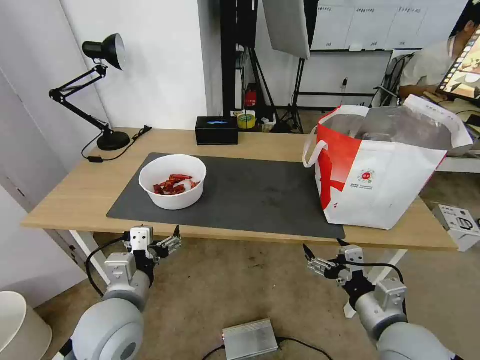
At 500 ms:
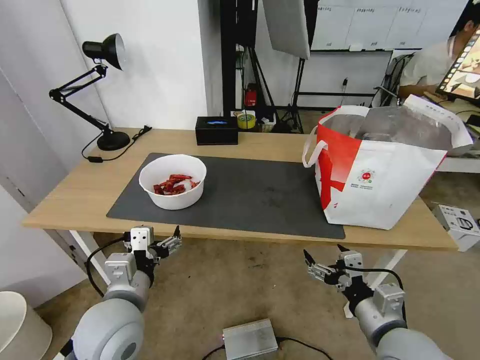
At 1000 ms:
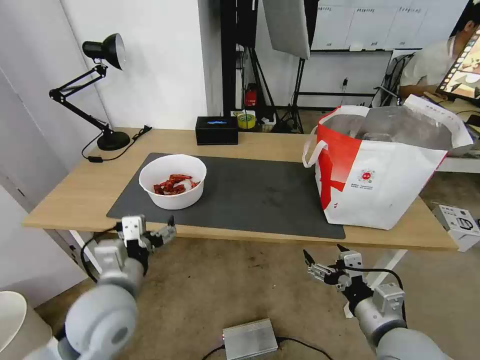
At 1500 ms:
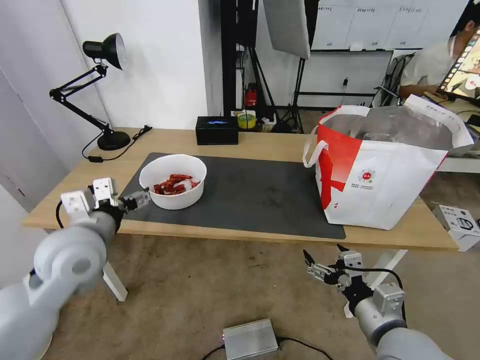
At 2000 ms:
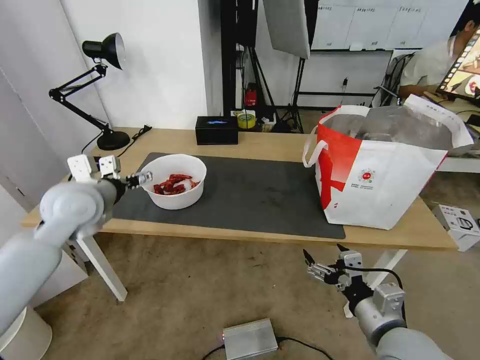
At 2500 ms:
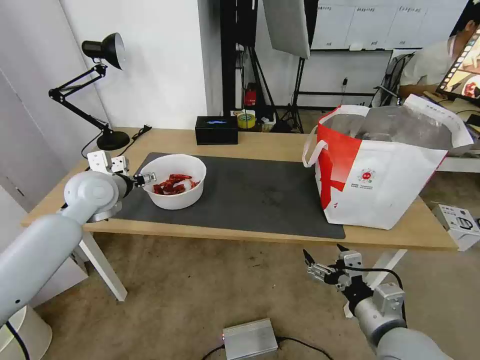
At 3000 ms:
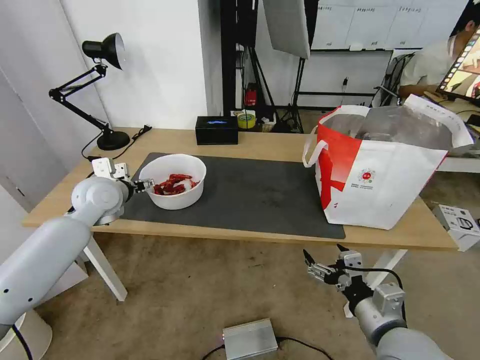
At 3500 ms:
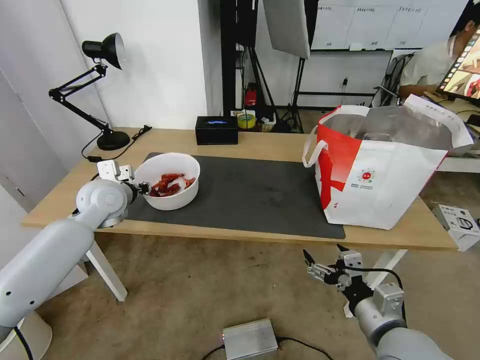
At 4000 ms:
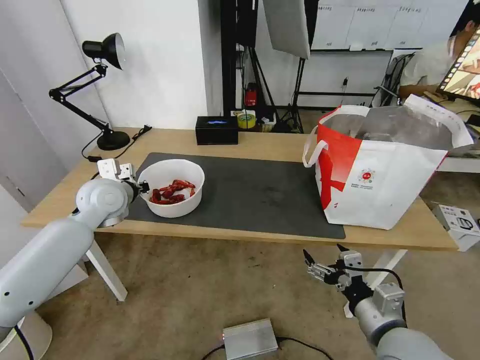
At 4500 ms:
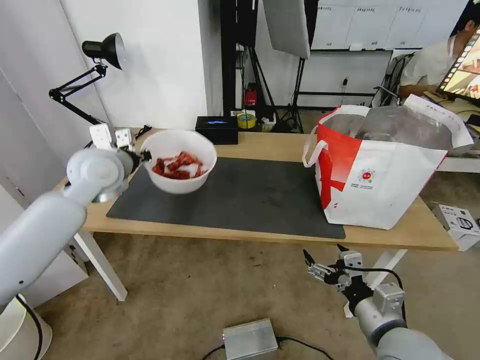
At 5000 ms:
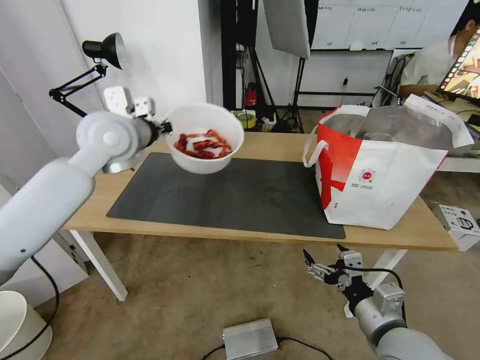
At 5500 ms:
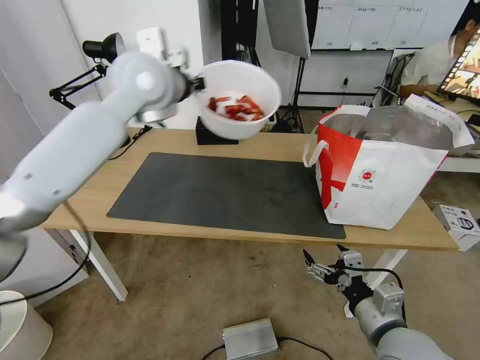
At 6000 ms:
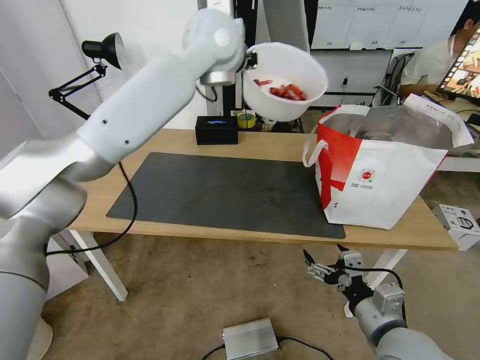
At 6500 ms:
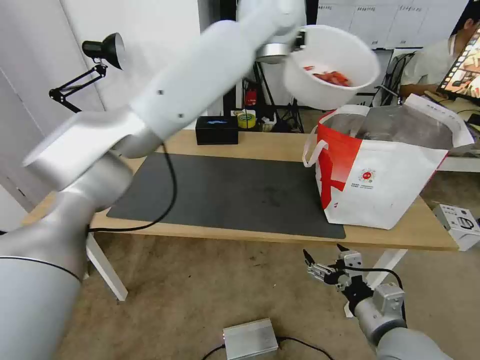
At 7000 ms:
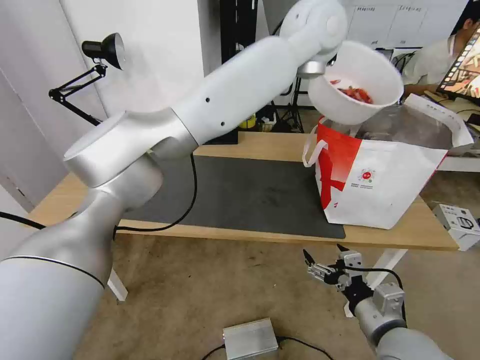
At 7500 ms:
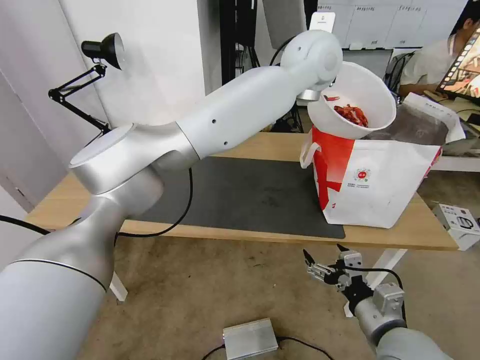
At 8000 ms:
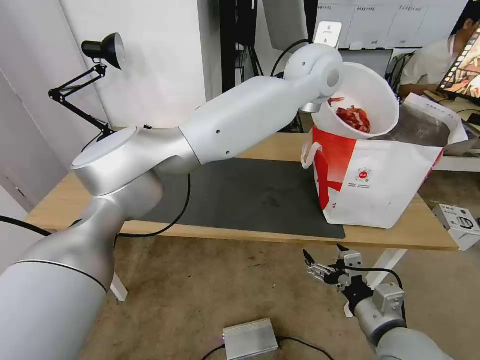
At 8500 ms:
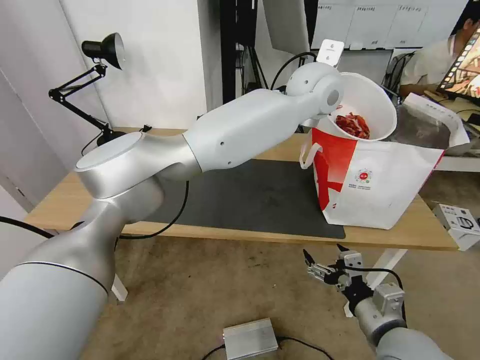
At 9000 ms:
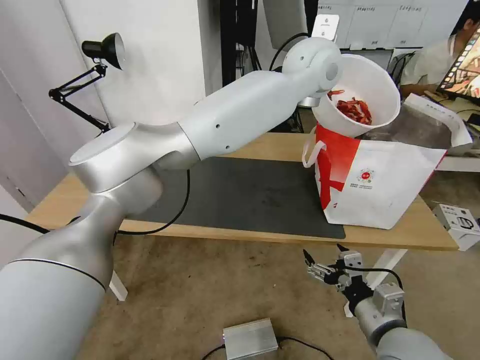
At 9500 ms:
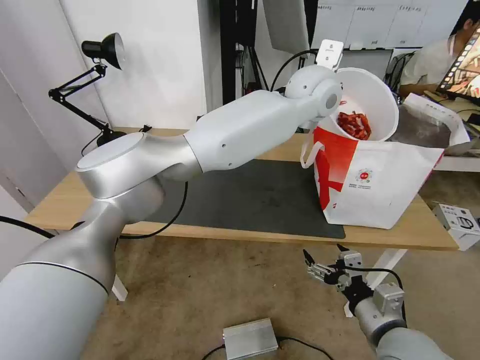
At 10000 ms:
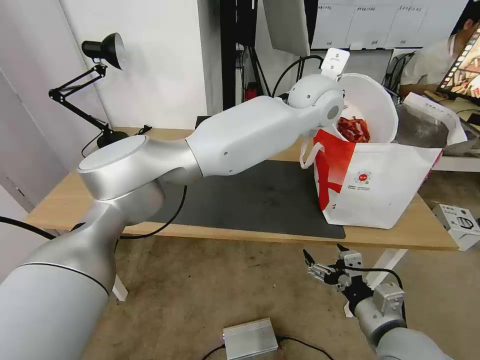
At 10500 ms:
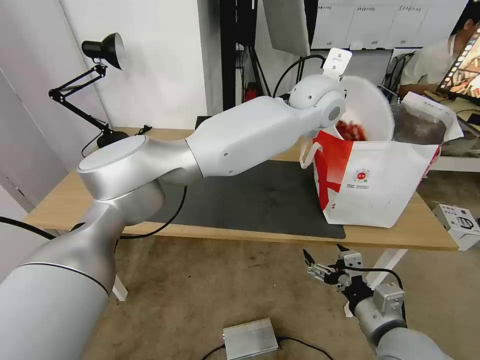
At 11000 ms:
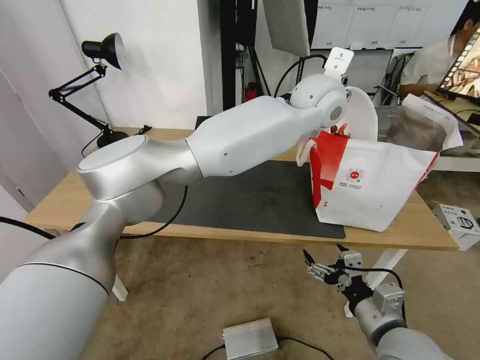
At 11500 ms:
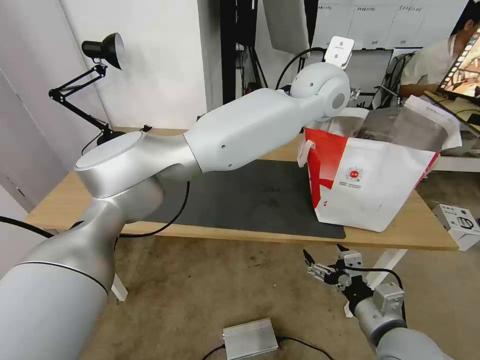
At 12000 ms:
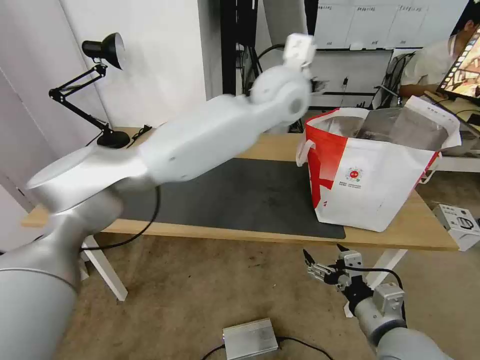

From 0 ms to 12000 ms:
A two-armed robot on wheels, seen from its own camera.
Task of the whole recording: Pick up the trash from the table and place it into the takeout bag.
From 0 ms to 2000 ms: The left gripper travels forward, upward and to the left by roughly 25 cm.
From 2000 ms to 4000 ms: The left gripper goes approximately 5 cm forward, and closes.
From 4000 ms to 6000 ms: The left gripper moves upward and to the right, roughly 35 cm.
From 6000 ms to 8000 ms: The left gripper moves to the right, roughly 15 cm.
From 8000 ms to 10000 ms: The grippers move only a little.
From 10000 ms to 12000 ms: The left gripper travels to the left by some 5 cm, and opens up.

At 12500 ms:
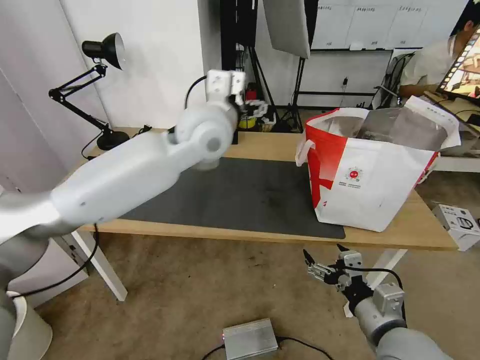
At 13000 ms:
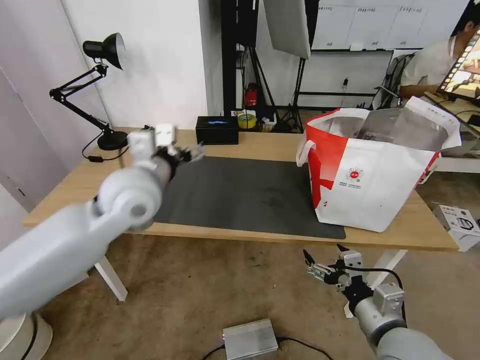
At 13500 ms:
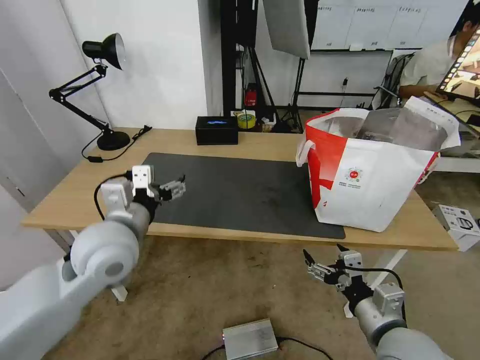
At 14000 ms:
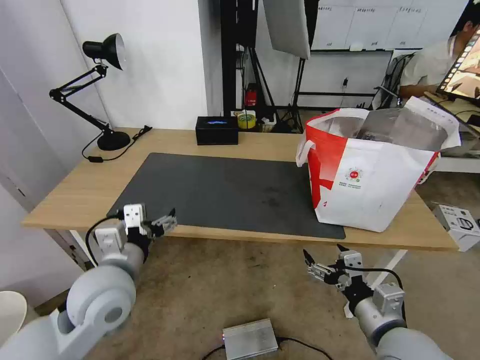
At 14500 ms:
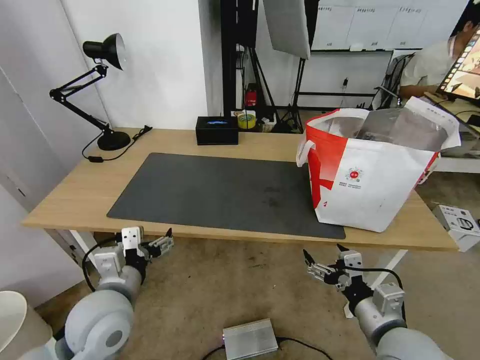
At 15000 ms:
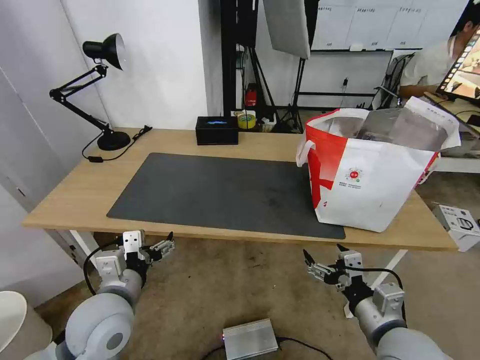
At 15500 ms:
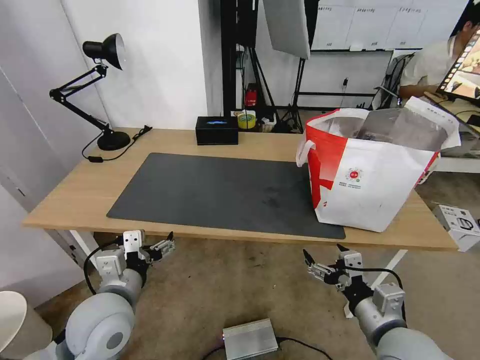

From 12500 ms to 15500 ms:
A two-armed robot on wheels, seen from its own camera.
Task of the whole recording: Pick up the trash from the table and place it into the takeout bag.
From 12500 ms to 14000 ms: The left gripper heads backward, downward and to the left, covering approximately 30 cm.
From 14000 ms to 15500 ms: The left gripper shifts by about 5 cm.

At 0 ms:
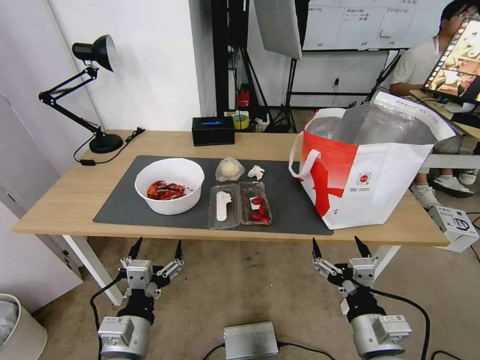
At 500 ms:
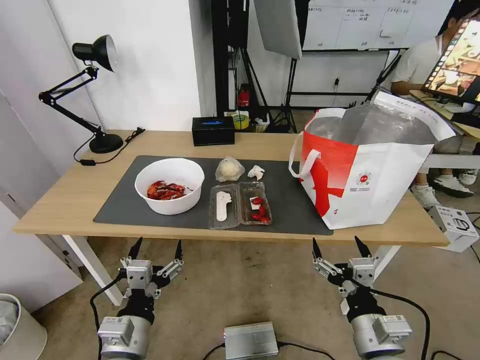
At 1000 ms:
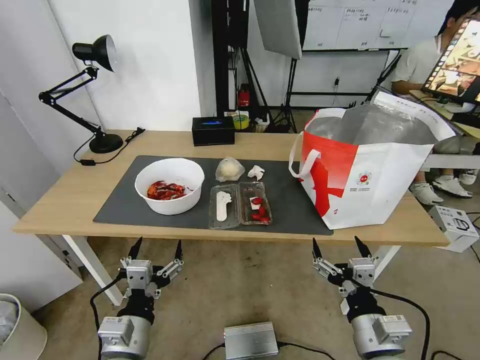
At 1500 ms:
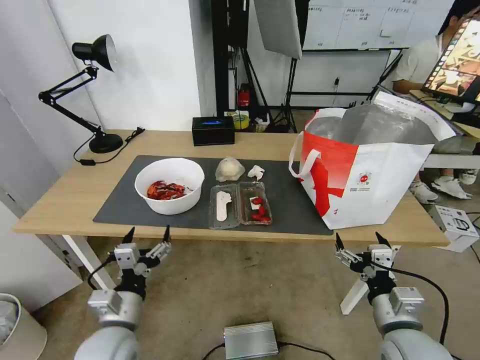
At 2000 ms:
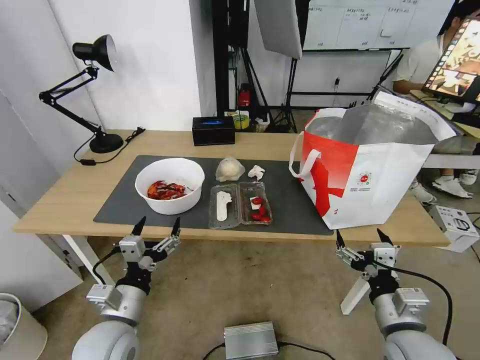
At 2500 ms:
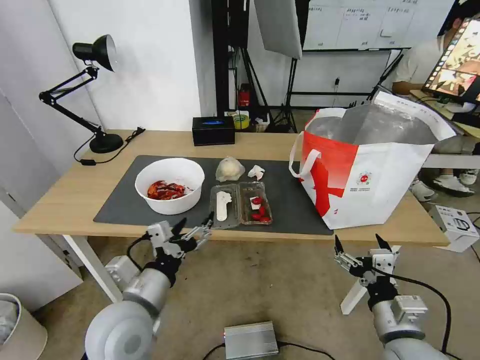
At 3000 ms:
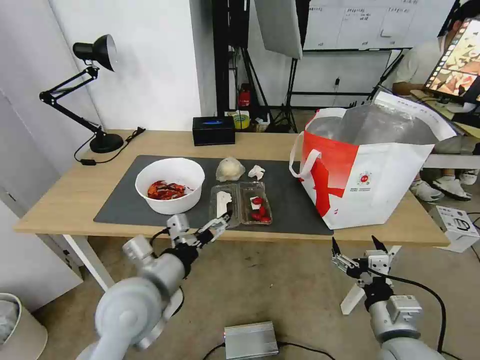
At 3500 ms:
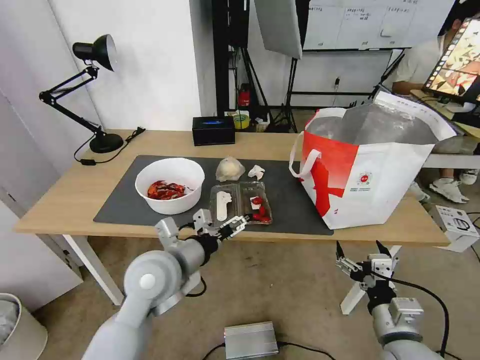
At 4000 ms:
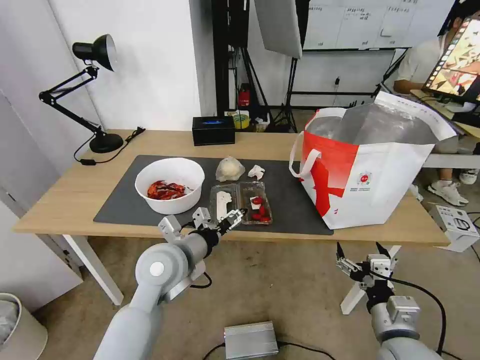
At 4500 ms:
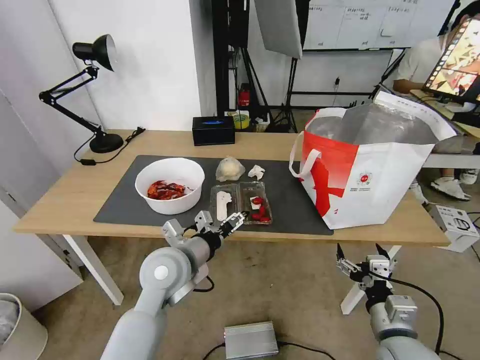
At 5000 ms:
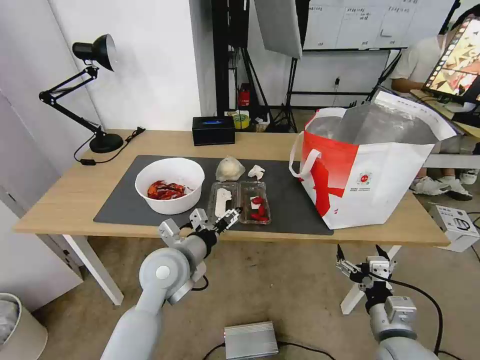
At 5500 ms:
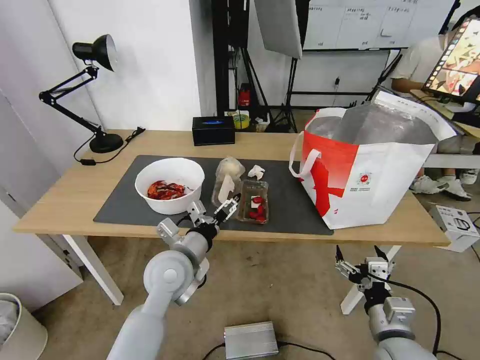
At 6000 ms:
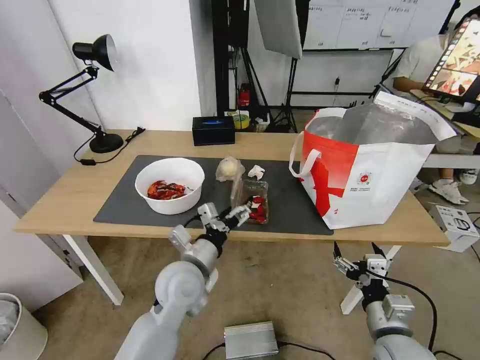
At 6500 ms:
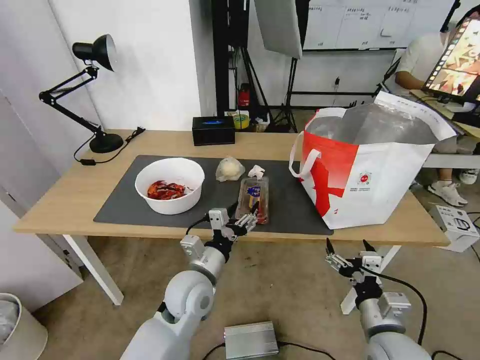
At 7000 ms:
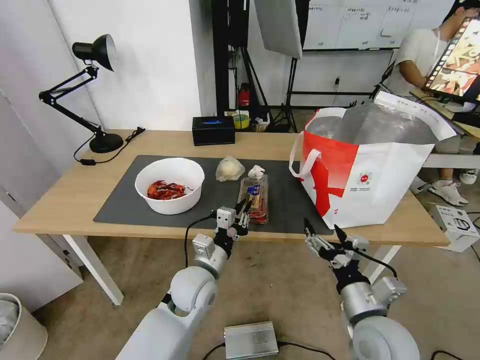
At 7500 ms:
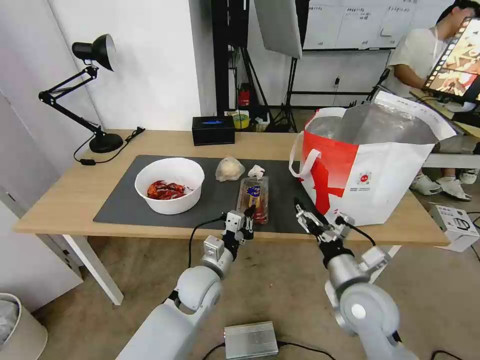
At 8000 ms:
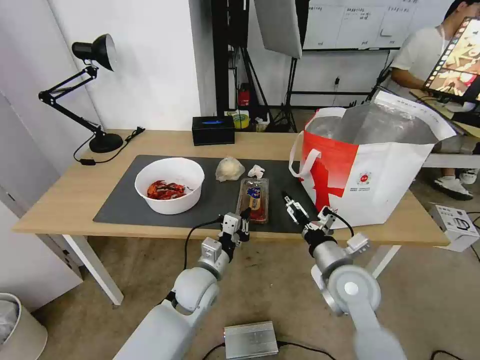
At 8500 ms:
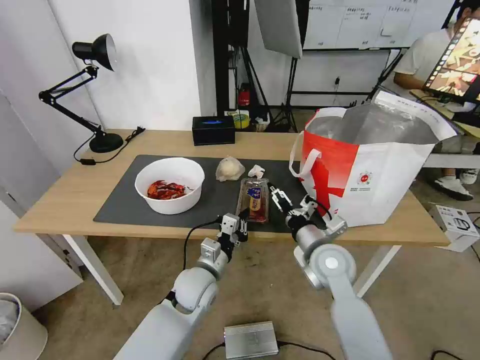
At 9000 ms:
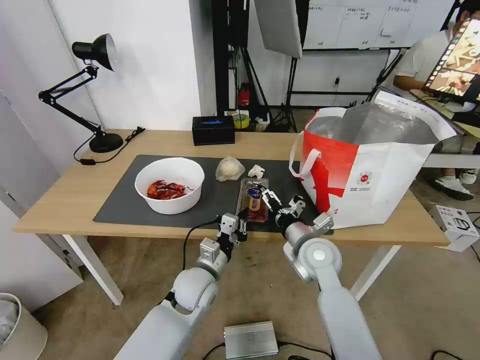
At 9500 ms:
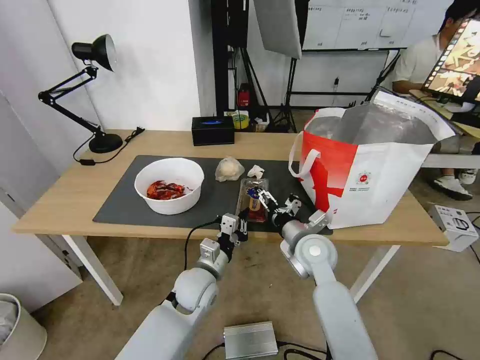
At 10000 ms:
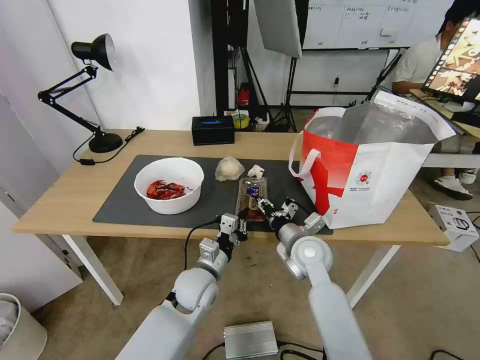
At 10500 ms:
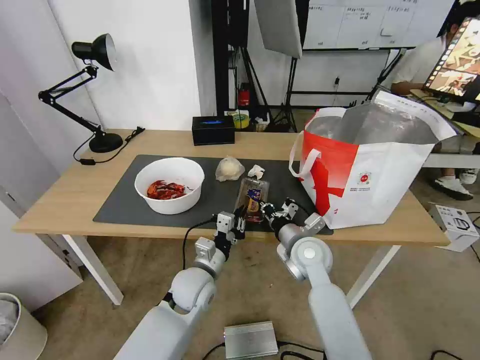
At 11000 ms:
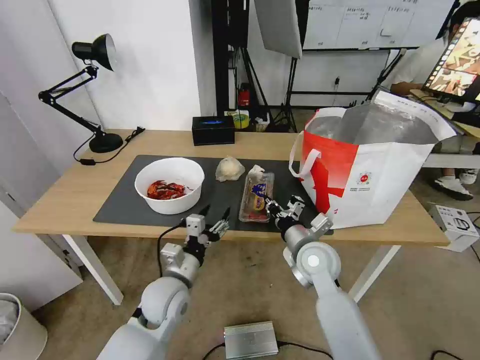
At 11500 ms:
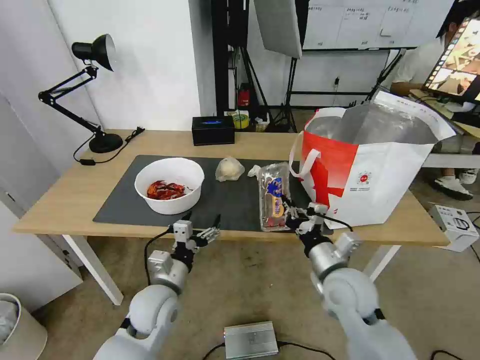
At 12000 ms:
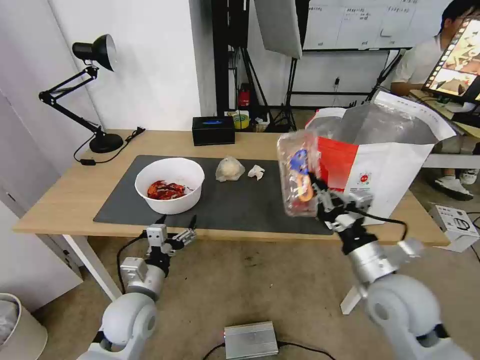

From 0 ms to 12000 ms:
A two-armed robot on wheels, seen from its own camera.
Task of the whole recording: Pick up the trash from the table and place it into the takeout bag.
From 2000 ms to 4000 ms: The left gripper moves forward, to the right and upward, approximately 15 cm.
From 4000 ms to 6000 ms: The left gripper shifts by roughly 5 cm.
From 6000 ms to 8000 ms: The right gripper travels forward, to the left and upward by about 15 cm. Meanwhile the left gripper travels downward by some 5 cm, and closes its fingers.
From 8000 ms to 10000 ms: The right gripper moves forward and to the left, about 10 cm, and closes its fingers.
From 10000 ms to 12000 ms: The right gripper is displaced backward, to the right and upward by about 20 cm, and closes up. The left gripper shifts roughly 15 cm to the left and backward, and opens.
